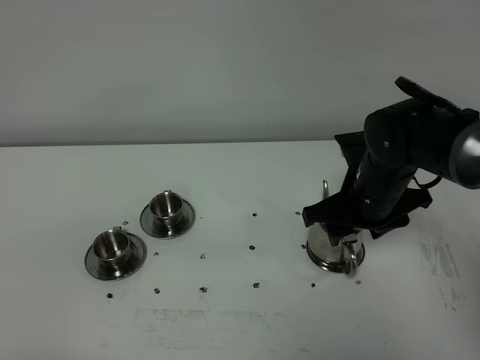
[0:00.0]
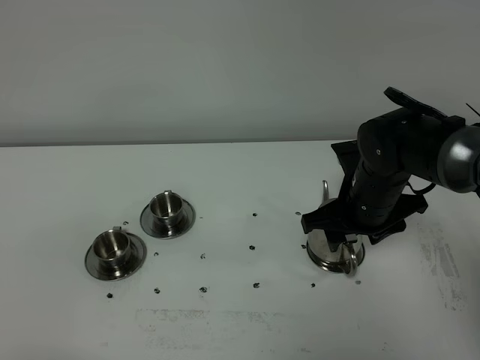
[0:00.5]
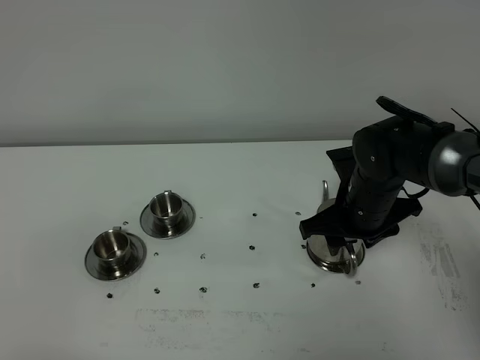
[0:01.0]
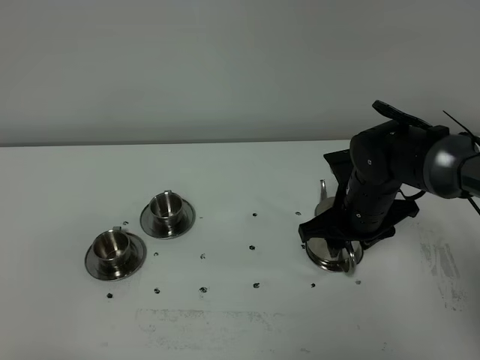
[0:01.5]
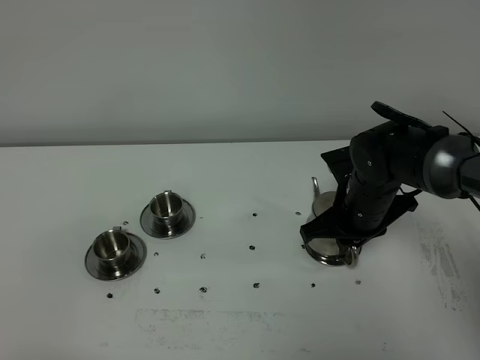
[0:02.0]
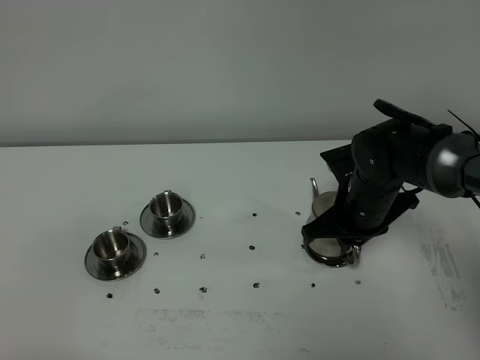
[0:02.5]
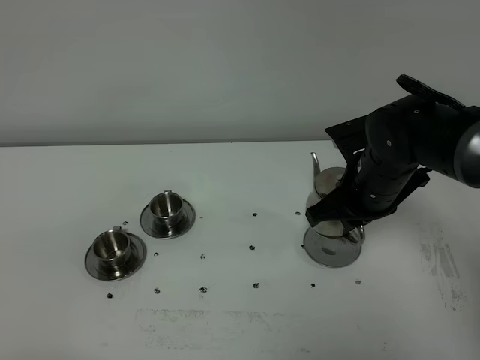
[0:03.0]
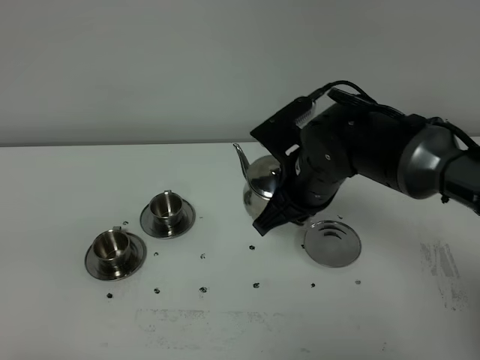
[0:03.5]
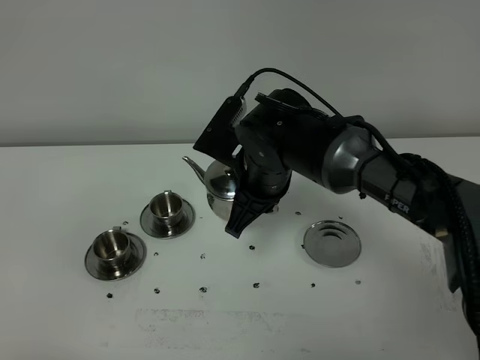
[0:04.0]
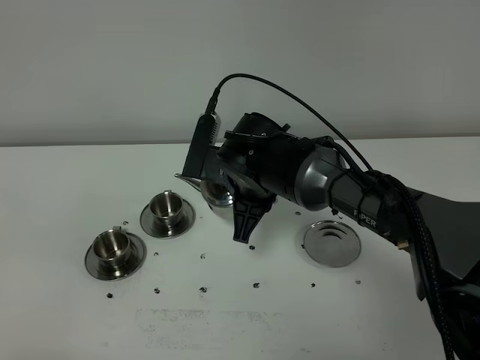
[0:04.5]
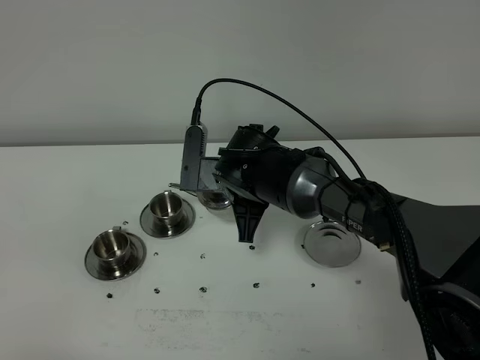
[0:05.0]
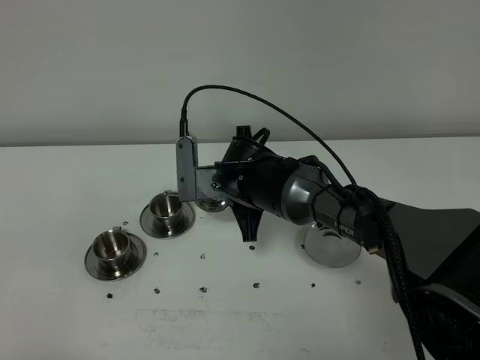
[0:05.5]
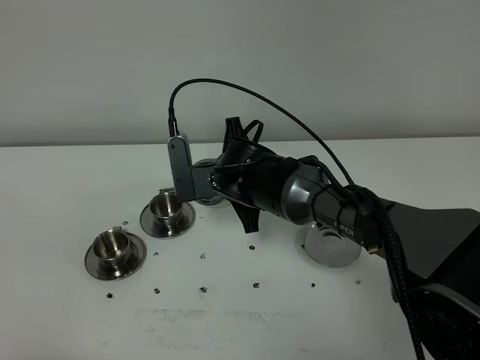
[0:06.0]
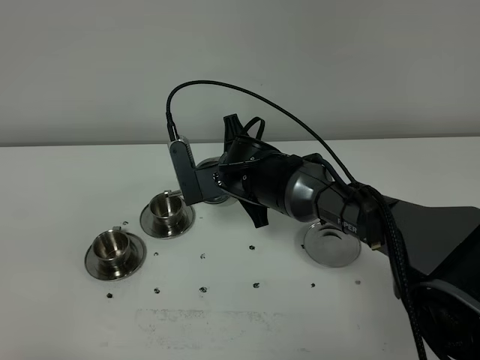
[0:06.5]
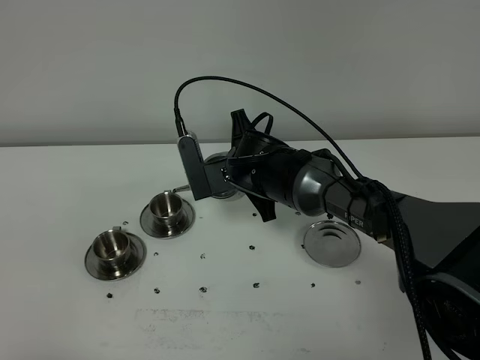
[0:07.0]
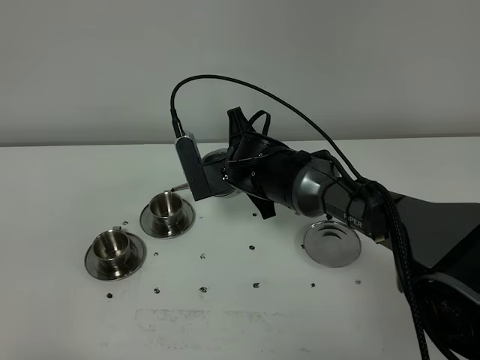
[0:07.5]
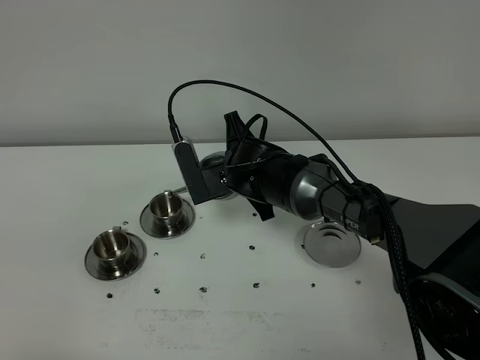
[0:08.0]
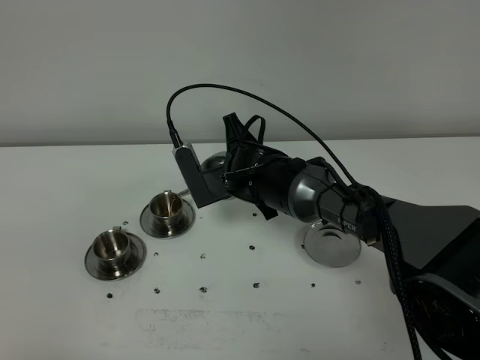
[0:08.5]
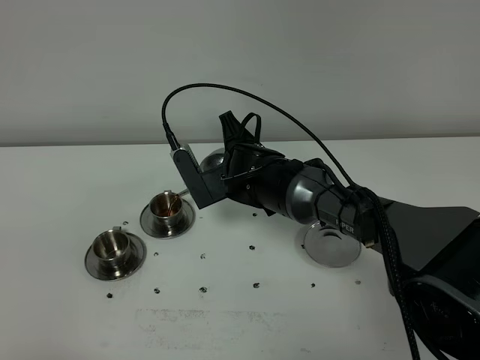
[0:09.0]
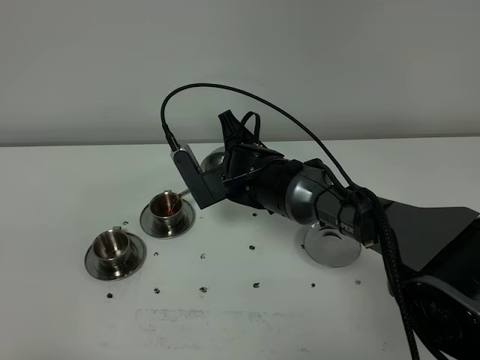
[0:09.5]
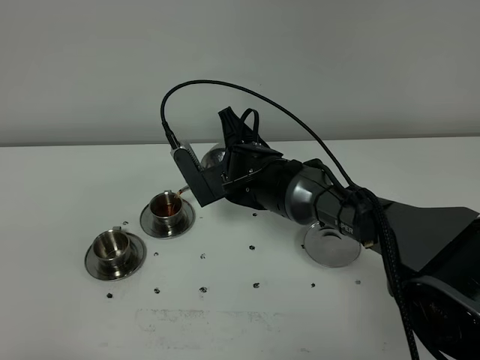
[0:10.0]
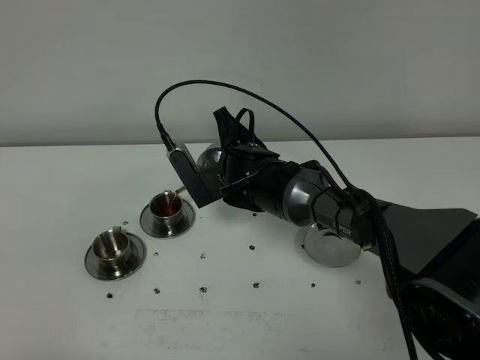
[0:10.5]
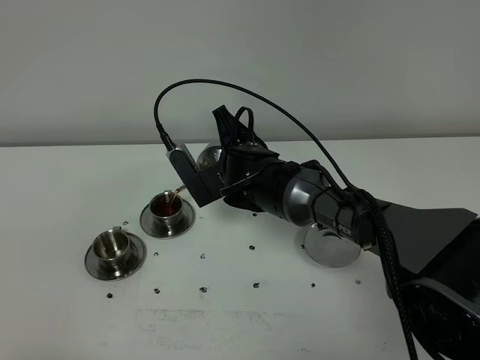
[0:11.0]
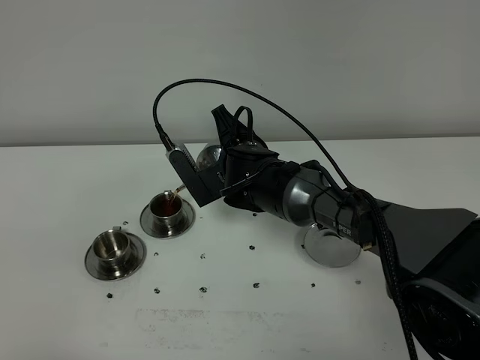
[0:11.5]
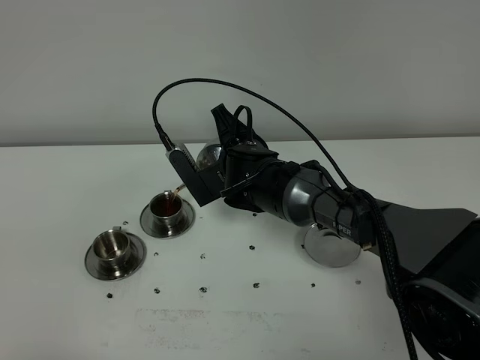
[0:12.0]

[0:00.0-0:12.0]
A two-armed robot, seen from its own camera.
Task of the whole recording: grasp the stainless steel teapot and pour the tea into the two stainless steel teacups one by one, put the stainless steel teapot back in its original place.
Step, 0.0 to 2.5 s: Pick up the teapot with the right gripper.
0.0 to 2.0 s: The right gripper closes its fingers.
2.0 to 4.0 s: The right gripper is displaced to the left and upward by roughly 15 cm.
4.0 to 6.0 s: The right gripper moves about 5 cm.
6.0 to 8.0 s: The grippers make only small movements.
8.0 to 10.0 s: The grippers move only a little.
10.0 to 12.0 s: Neither gripper changes place.

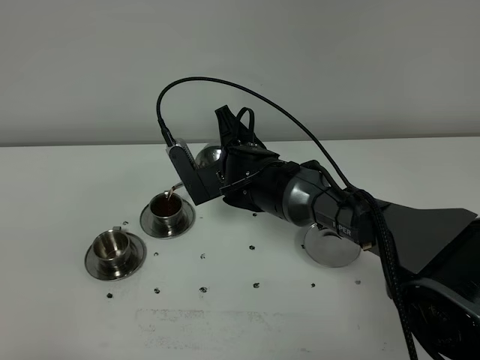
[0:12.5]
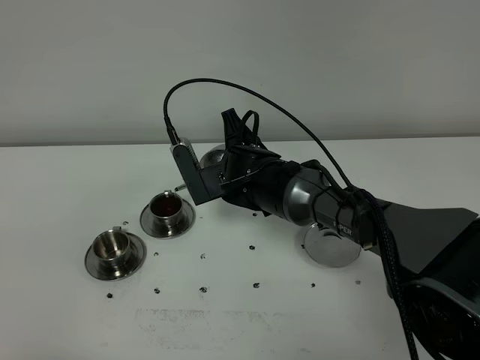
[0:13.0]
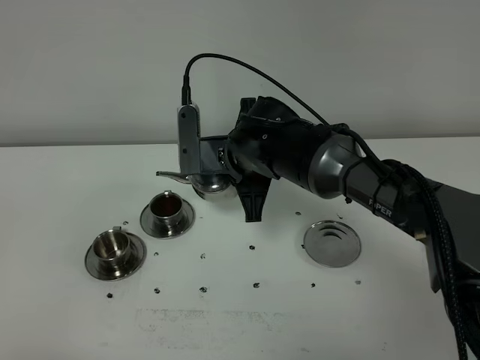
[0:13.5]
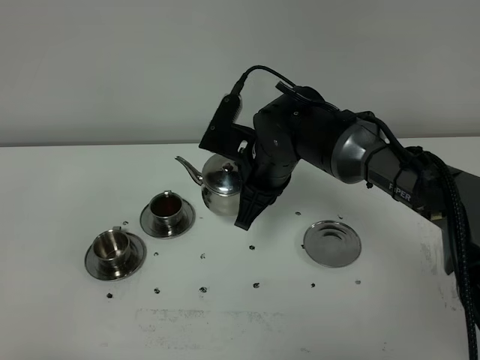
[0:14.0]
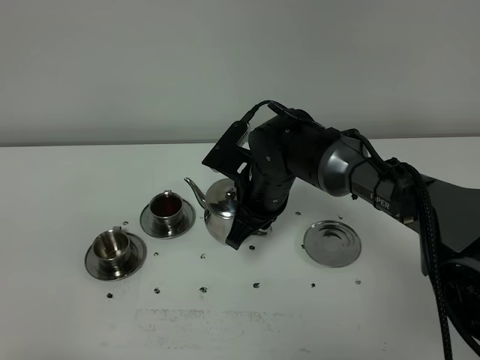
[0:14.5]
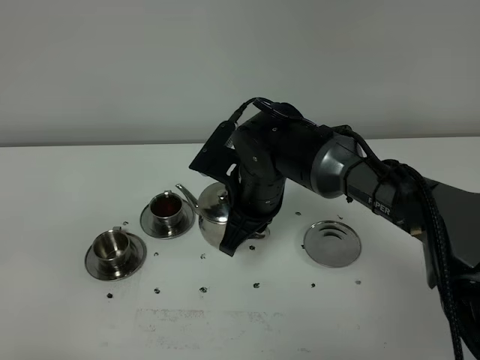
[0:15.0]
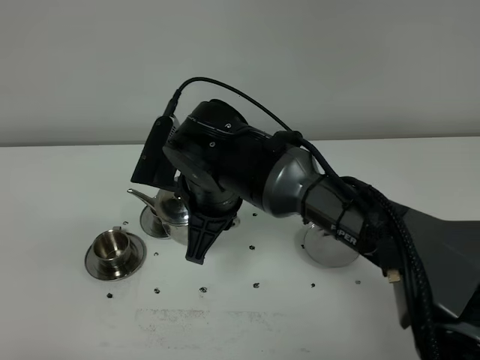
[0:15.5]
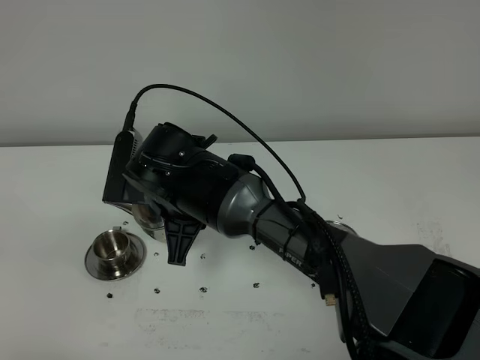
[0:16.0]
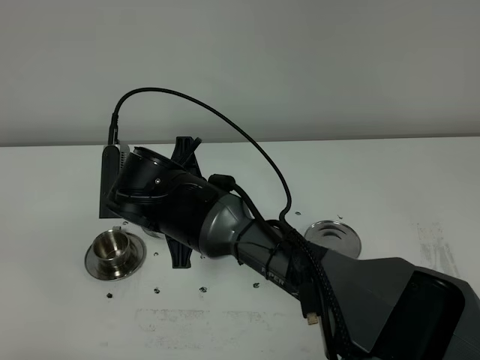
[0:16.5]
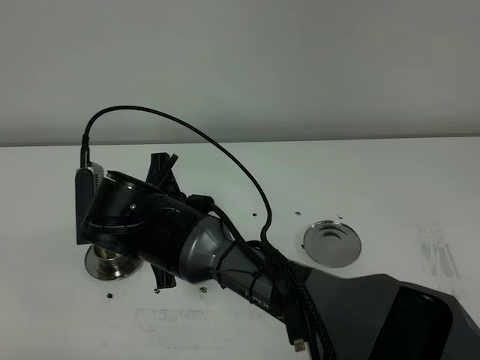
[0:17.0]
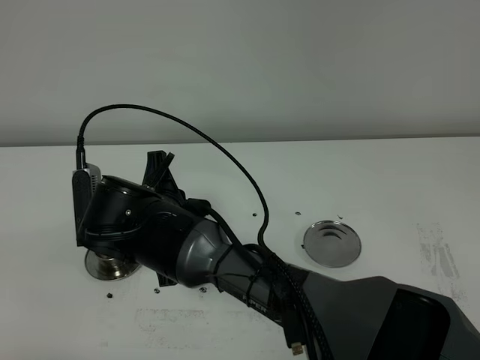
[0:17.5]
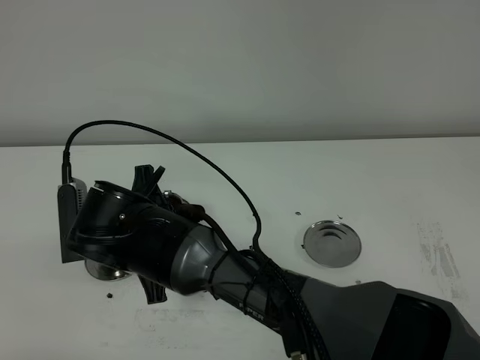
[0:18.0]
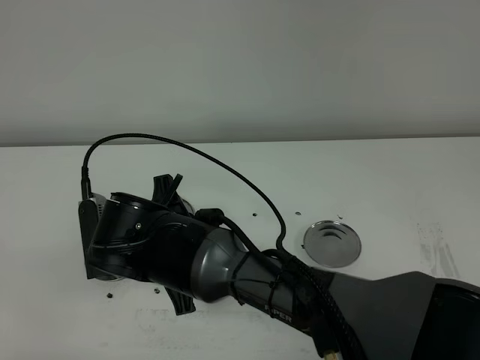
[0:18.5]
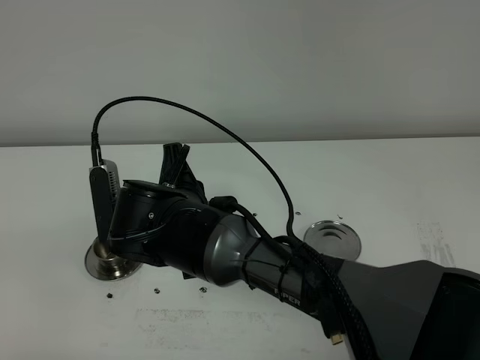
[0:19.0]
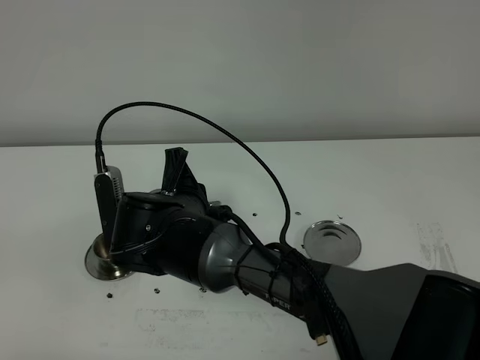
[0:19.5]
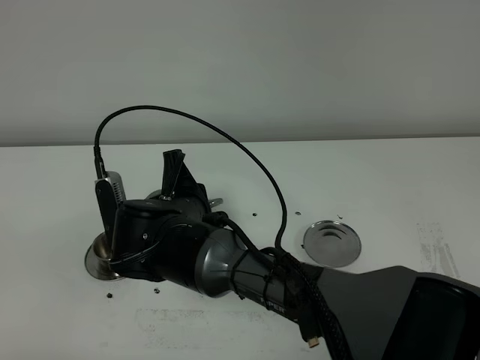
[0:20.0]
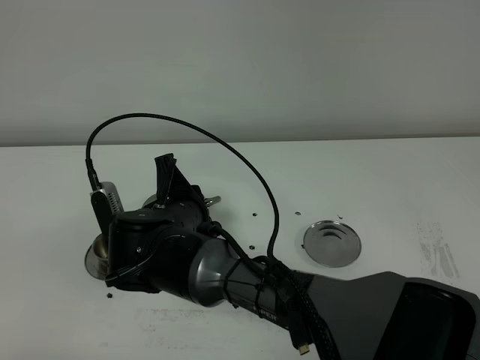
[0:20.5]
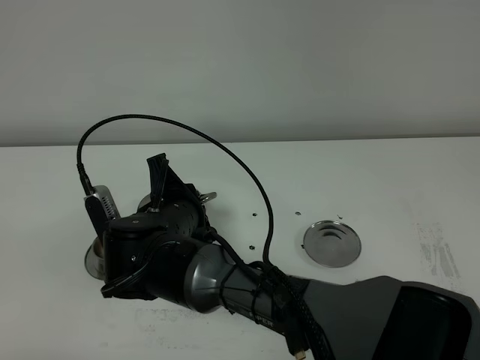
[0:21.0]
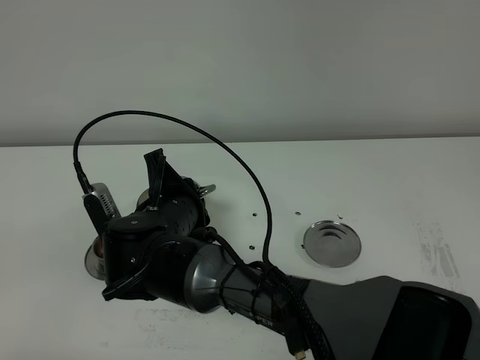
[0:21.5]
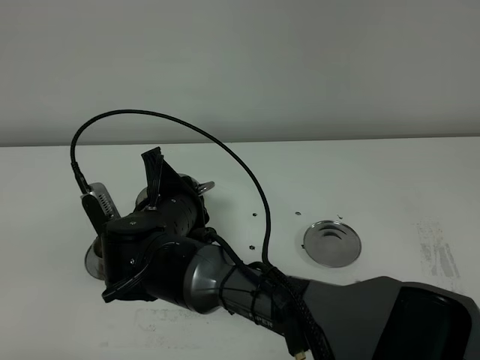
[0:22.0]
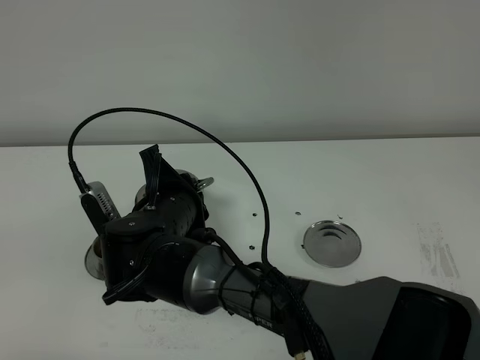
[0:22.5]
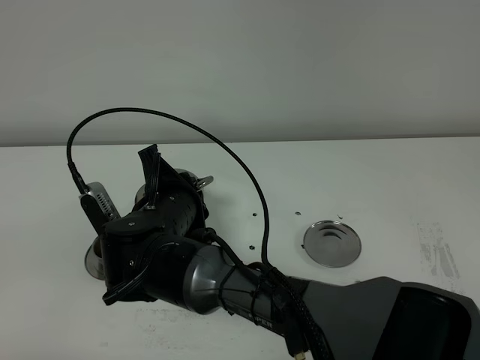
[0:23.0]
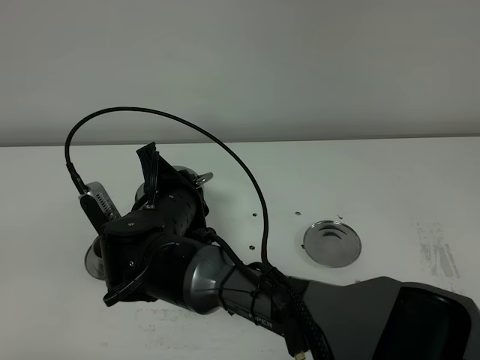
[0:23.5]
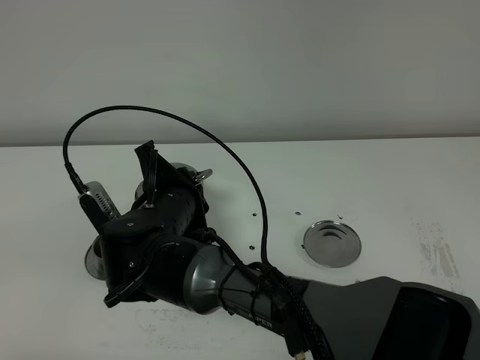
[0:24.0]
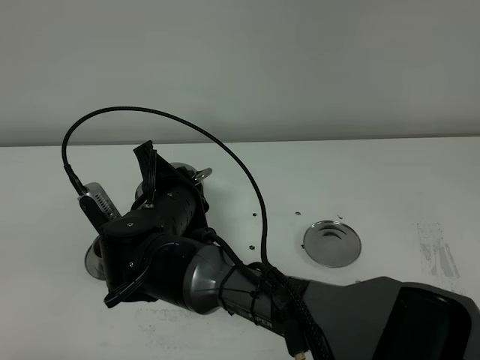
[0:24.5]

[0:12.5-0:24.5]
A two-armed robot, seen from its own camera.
Task of the whole recording: grasp the stainless steel teapot and pour the tea into the two stainless steel teacups one by one, put the stainless steel teapot back in its original place.
14.5 to 16.5 s: The right gripper heads to the left and backward, covering approximately 15 cm.
16.5 to 18.5 s: The right gripper is displaced backward by roughly 5 cm.
18.5 to 20.5 s: The grippers move only a little.
20.5 to 24.5 s: The grippers make only small movements.

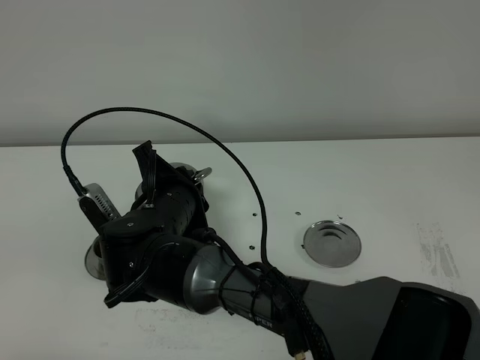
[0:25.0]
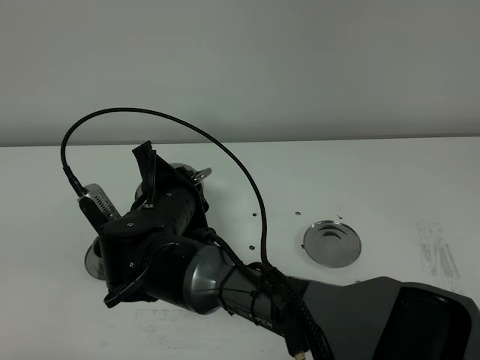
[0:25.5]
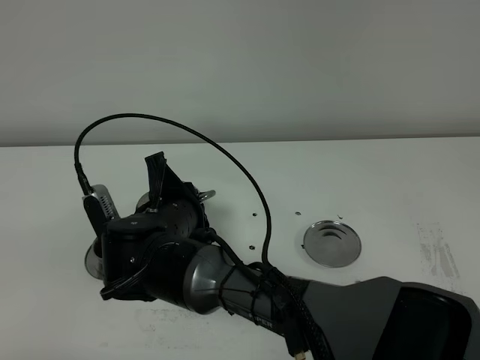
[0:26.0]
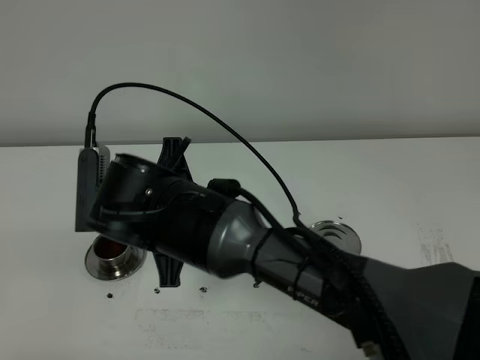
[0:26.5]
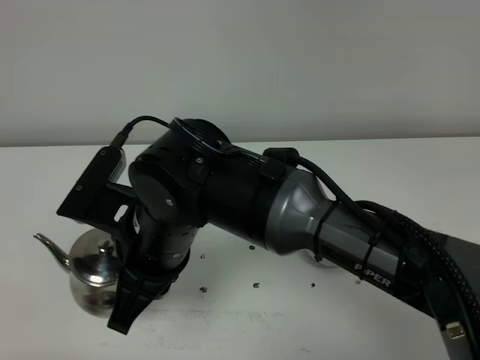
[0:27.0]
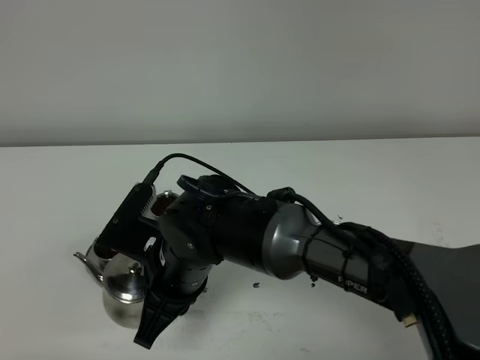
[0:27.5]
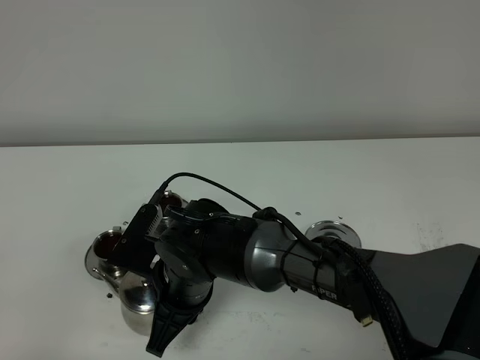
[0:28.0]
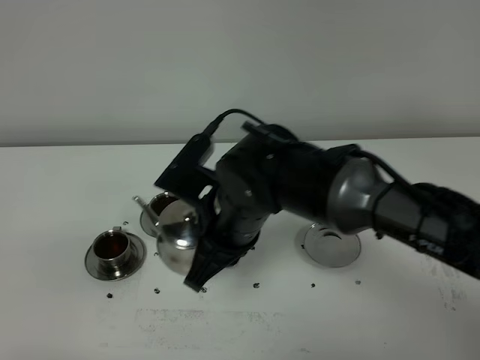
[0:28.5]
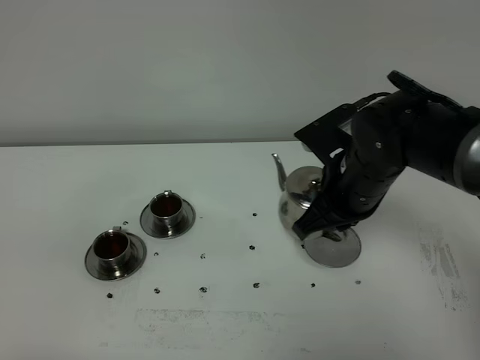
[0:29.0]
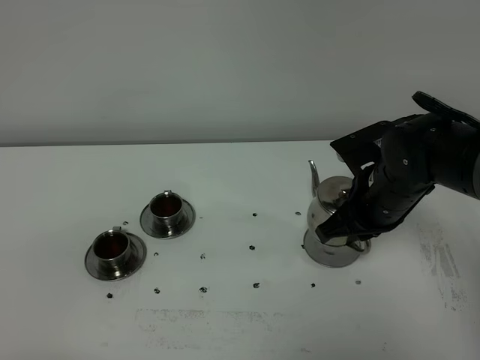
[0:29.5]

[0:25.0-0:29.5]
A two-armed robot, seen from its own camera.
Task of the whole recording: grasp the stainless steel teapot and pour the tea into the two stainless steel teacups one by one, put the stainless steel teapot back in its original place.
25.0 to 27.0 s: The right gripper goes some 10 cm upward and backward.
27.0 to 29.5 s: The right gripper goes approximately 25 cm to the right and forward.
